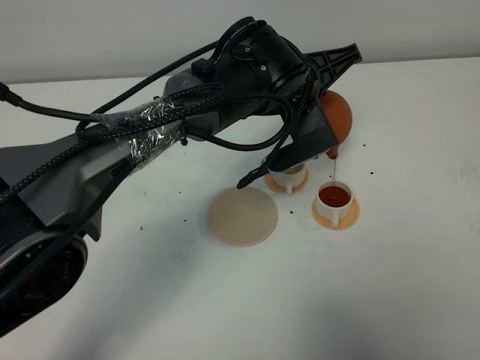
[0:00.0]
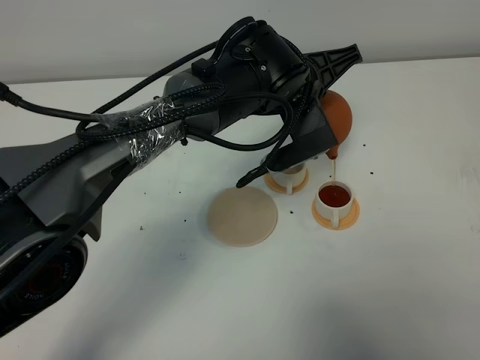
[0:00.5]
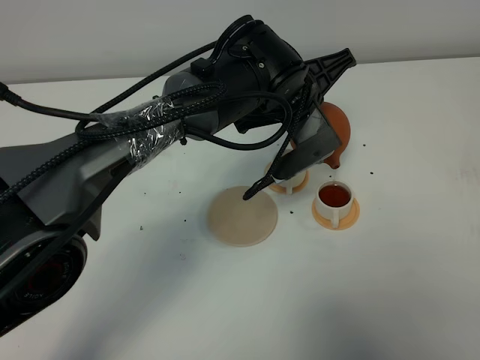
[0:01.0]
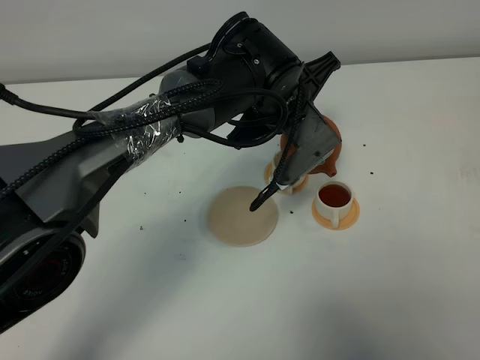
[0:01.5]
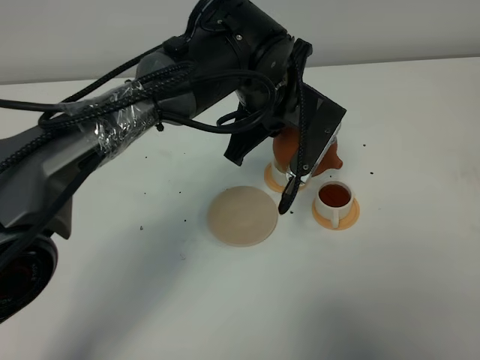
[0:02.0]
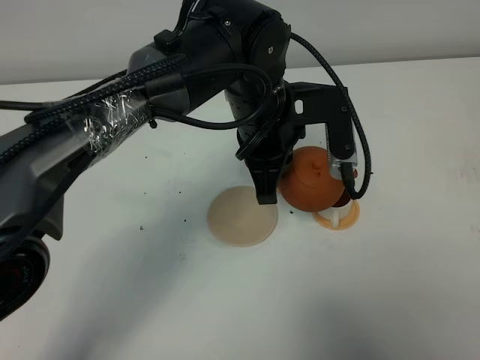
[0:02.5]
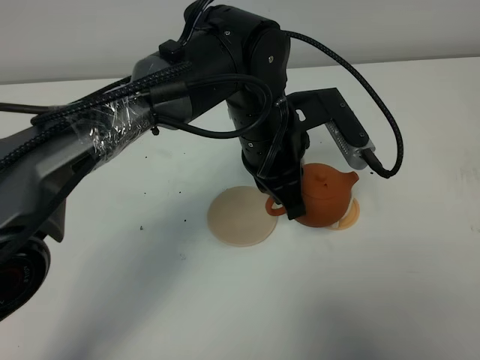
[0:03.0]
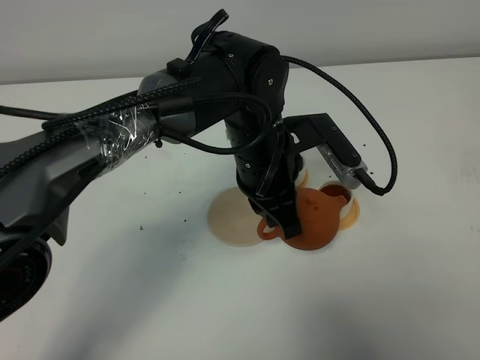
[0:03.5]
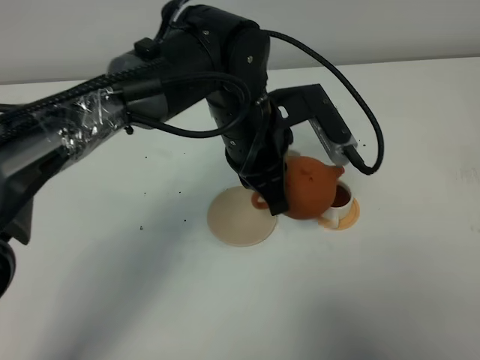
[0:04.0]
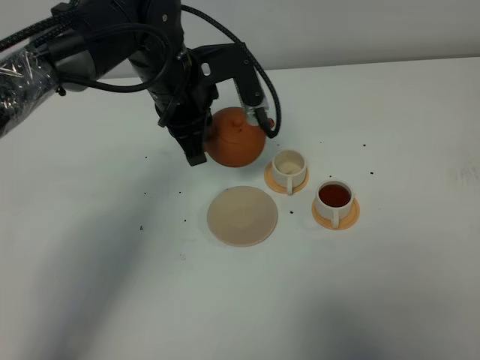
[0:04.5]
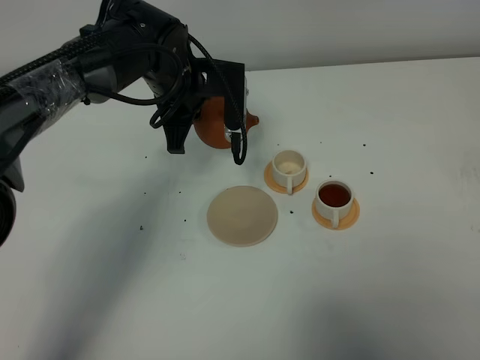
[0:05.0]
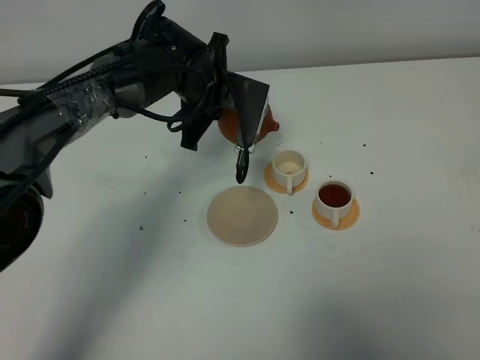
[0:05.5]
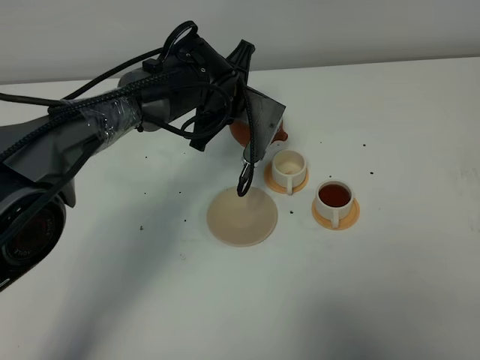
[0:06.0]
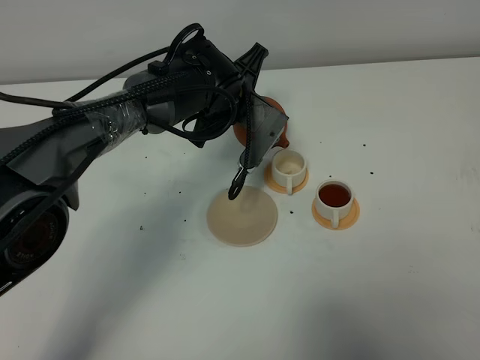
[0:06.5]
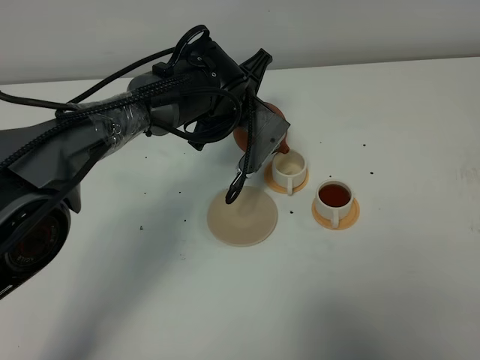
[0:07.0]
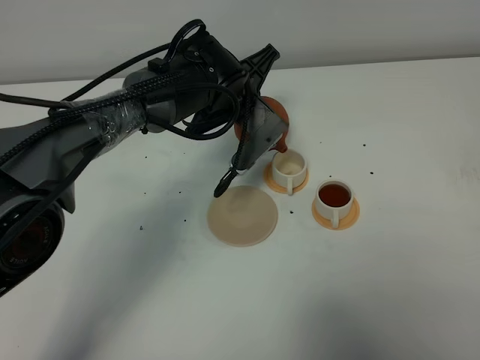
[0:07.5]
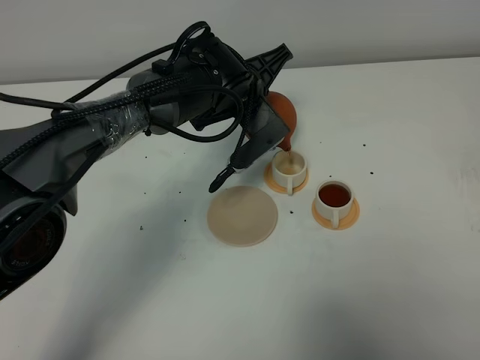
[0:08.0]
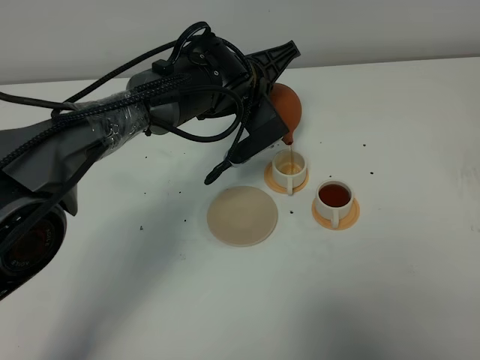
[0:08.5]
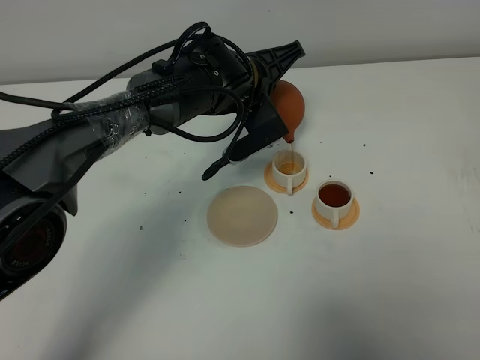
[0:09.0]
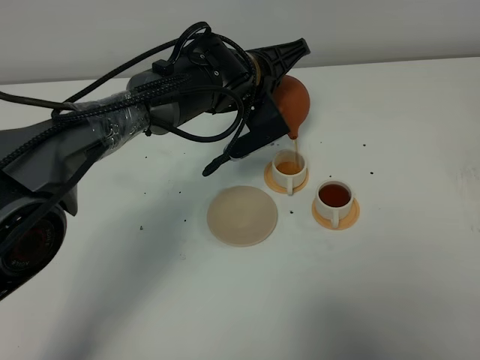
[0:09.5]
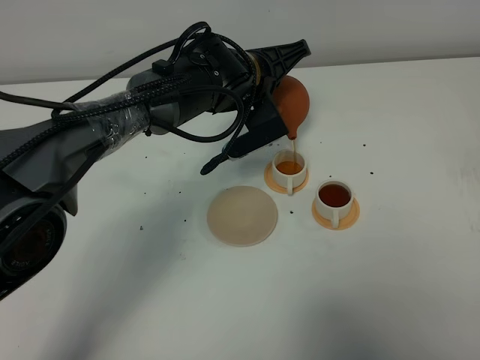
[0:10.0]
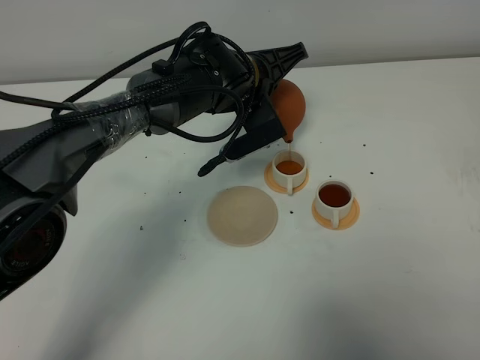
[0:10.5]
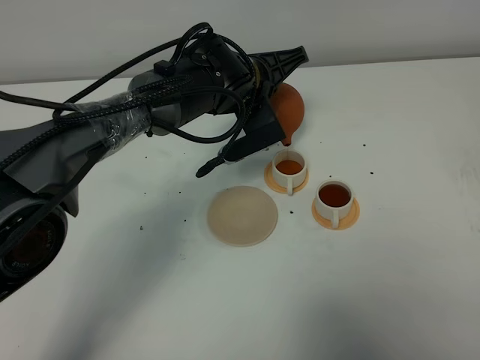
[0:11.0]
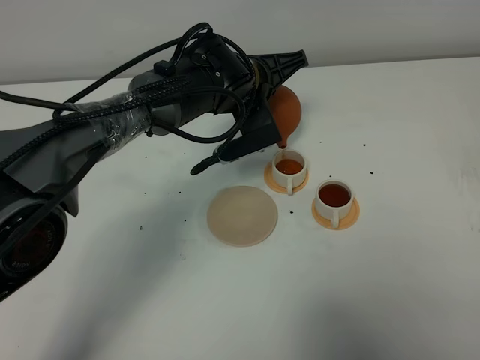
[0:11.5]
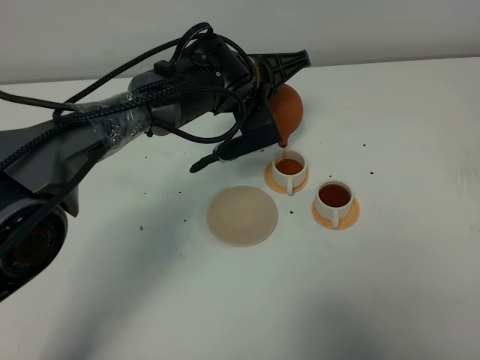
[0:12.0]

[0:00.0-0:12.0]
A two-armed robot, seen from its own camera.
Task of the whole recording: grasp the brown teapot and pour the tea into the two white teacups one by one, put the brown teapot back in its original place.
0:04.0 to 0:06.0: The left gripper shifts approximately 10 cm forward and downward.
0:08.0 to 0:12.0: There are only small adjustments of the grippers.

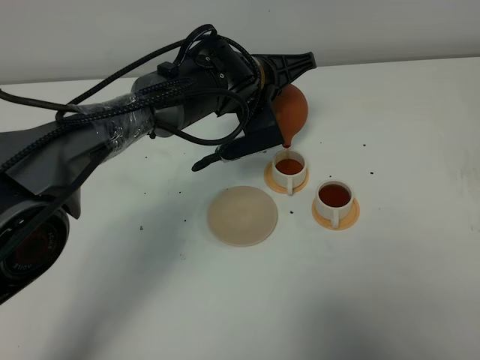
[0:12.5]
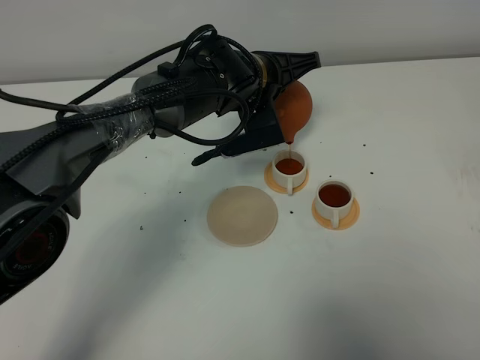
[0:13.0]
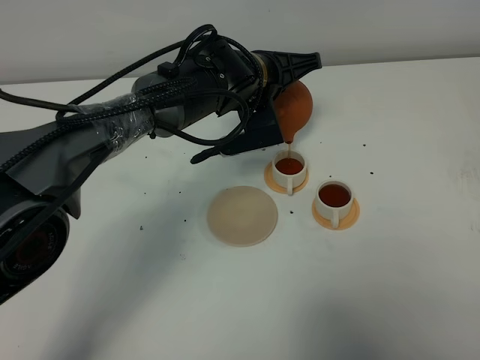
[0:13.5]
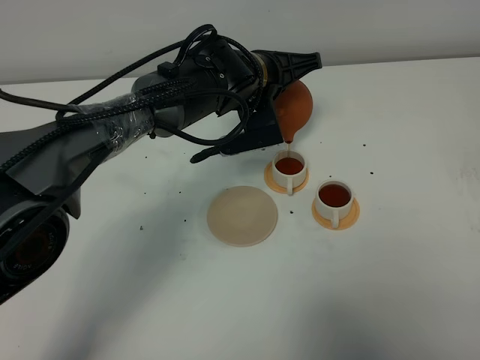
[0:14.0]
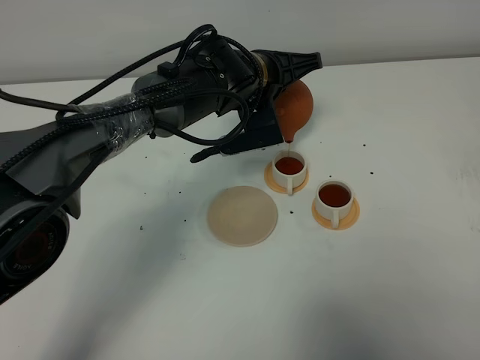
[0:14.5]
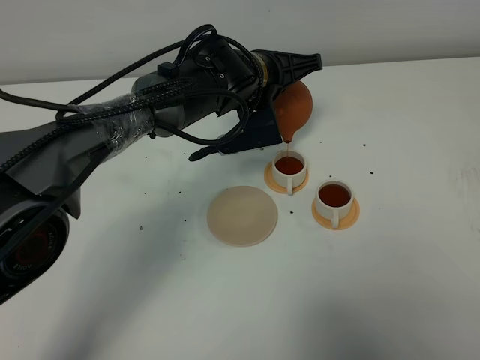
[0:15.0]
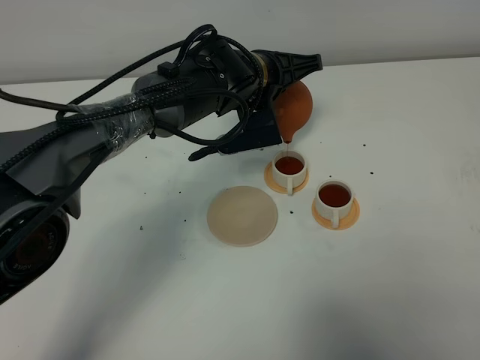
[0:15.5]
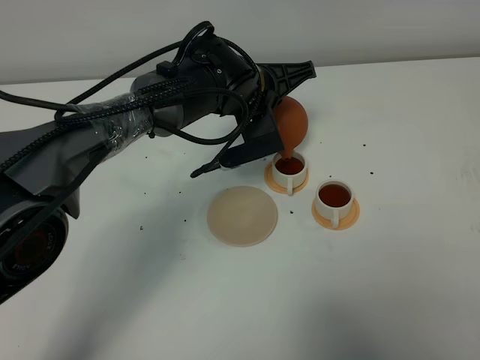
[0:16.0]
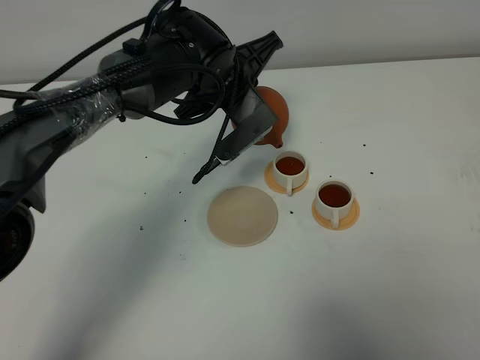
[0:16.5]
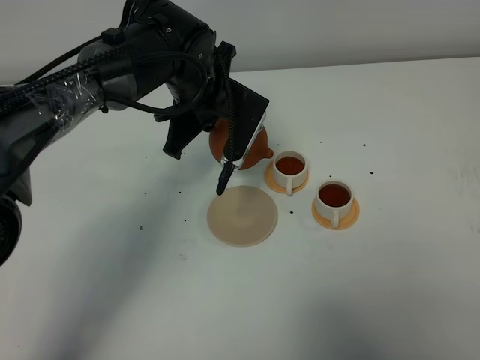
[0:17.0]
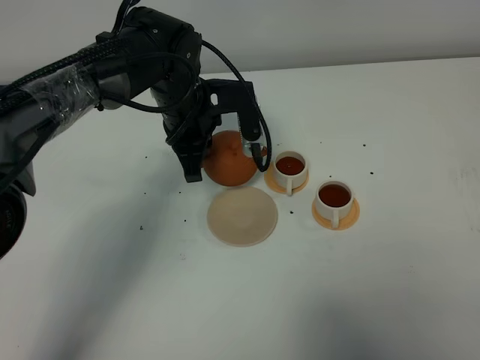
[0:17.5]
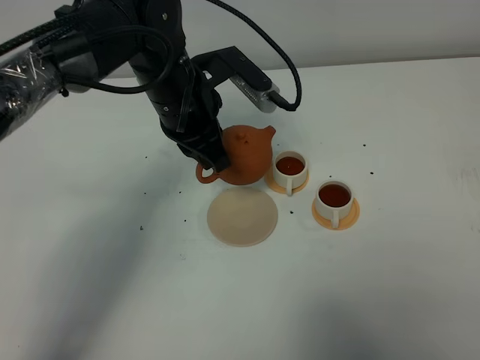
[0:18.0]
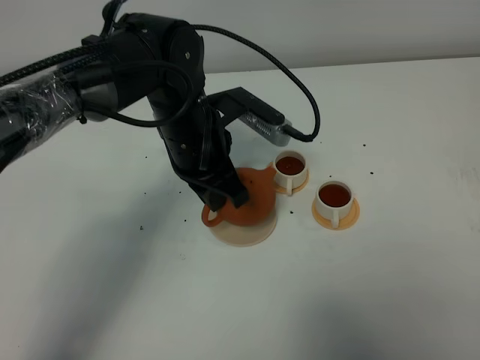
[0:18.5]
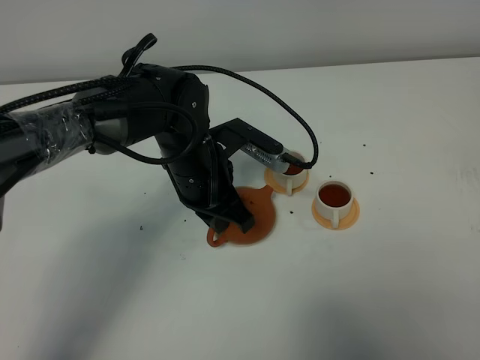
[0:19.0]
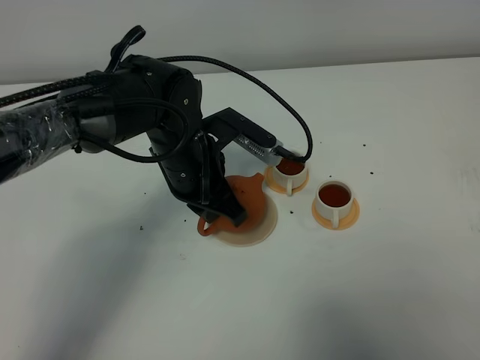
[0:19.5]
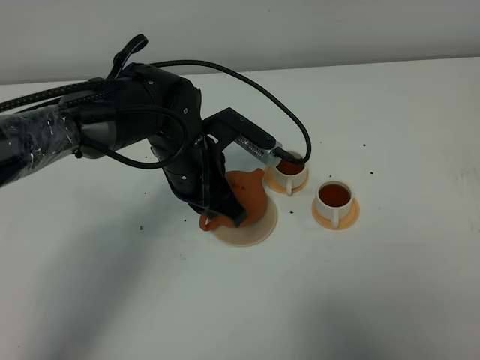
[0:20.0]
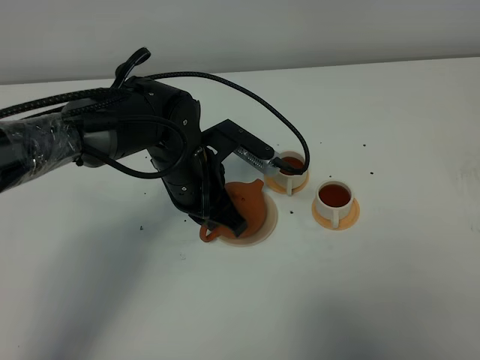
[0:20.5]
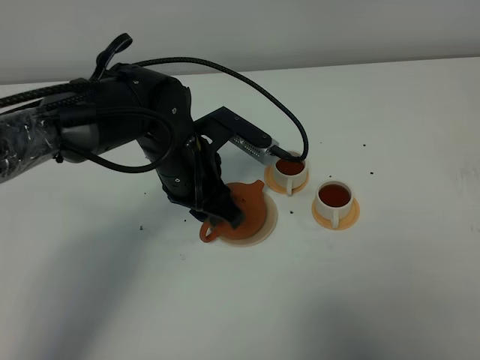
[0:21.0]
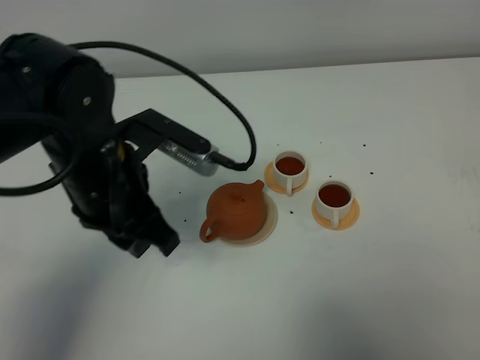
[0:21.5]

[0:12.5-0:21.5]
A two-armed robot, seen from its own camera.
Task of the whole recording: grasp the brown teapot and pour the tea into the two white teacups one by one, put the brown teapot back in its original place.
Step, 0:12.5 to 0:16.5: Pour tea into the teacup with the left gripper.
0:12.5 to 0:14.5: The grippers move only a little.
0:14.5 to 0:17.0: The left gripper travels to the left by approximately 5 cm.
0:17.0 to 0:19.5: The left gripper shifts about 10 cm backward.
0:19.5 to 0:21.5: The left gripper is displaced backward, upward and to the left by about 15 cm, and opens.

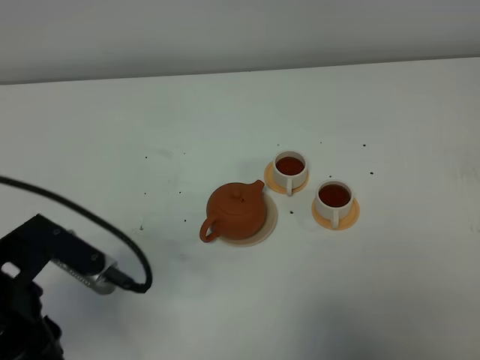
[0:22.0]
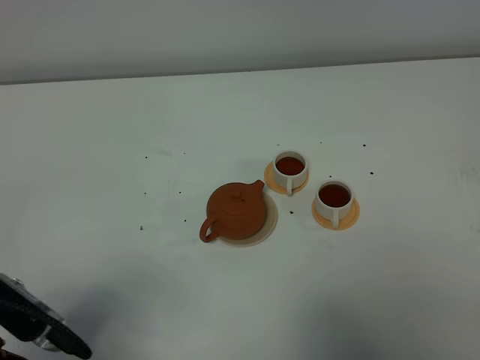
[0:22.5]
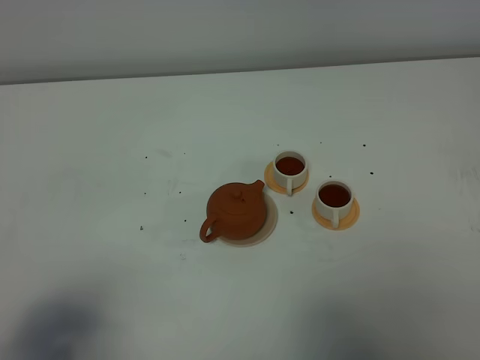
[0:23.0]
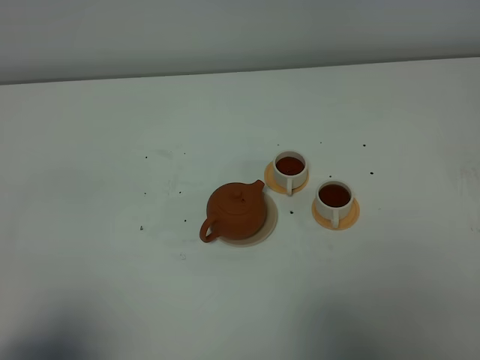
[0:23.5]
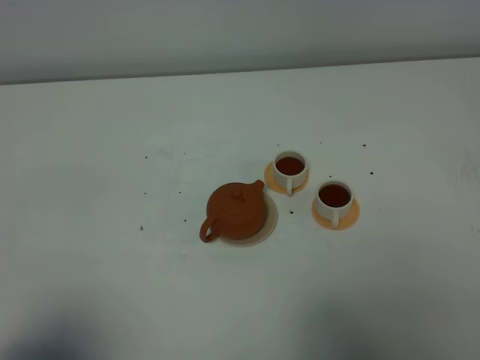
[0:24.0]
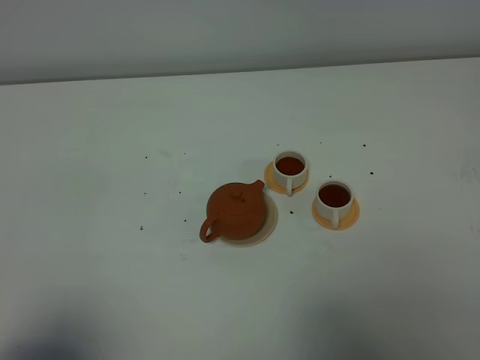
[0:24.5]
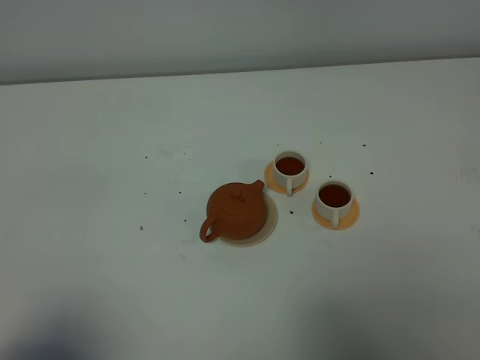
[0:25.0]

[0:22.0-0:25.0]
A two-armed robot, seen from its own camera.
Task of the whole recording: grasp the brown teapot and pour the tea into the two white teacups one by one, put the brown teapot back in its original place.
0:22.0 to 0:23.5: The left gripper is displaced backward and to the left by some 15 cm.
0:23.5 to 0:25.0: The two grippers keep their place.
